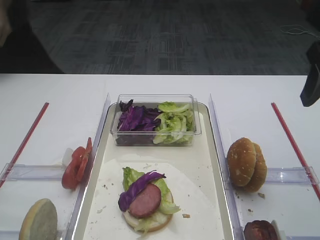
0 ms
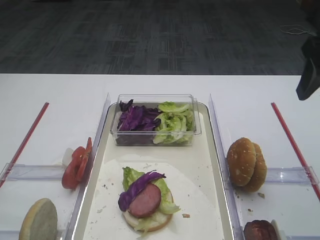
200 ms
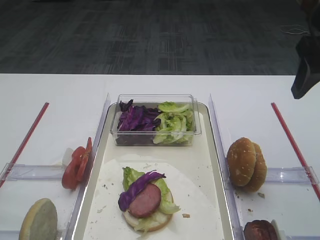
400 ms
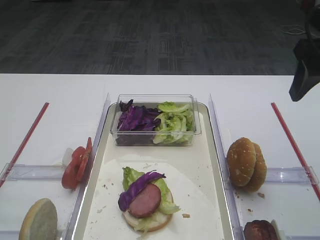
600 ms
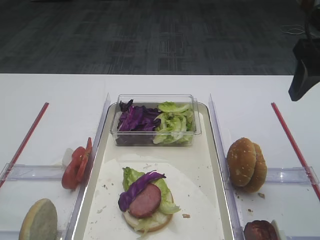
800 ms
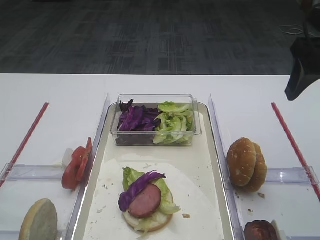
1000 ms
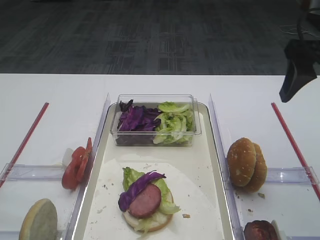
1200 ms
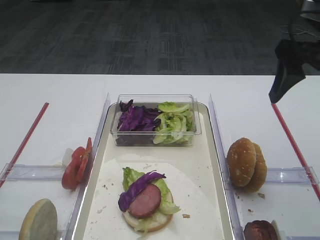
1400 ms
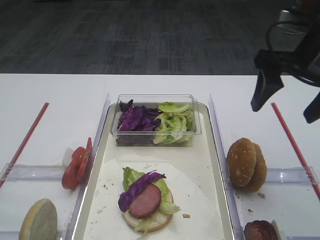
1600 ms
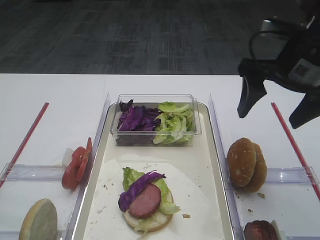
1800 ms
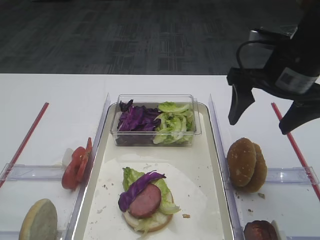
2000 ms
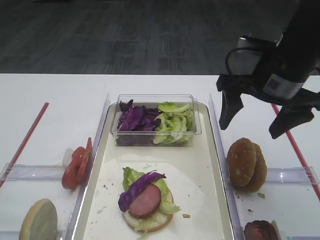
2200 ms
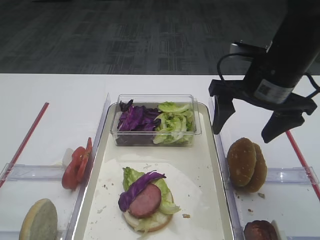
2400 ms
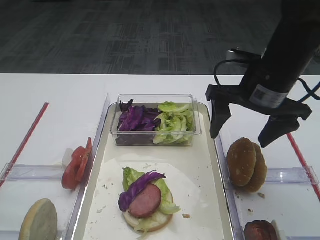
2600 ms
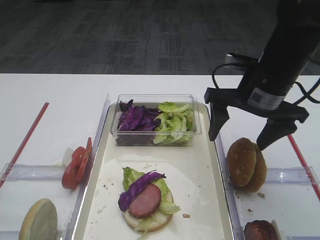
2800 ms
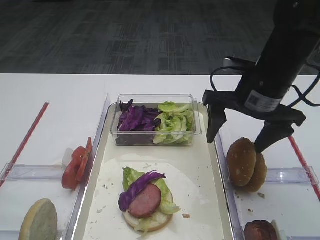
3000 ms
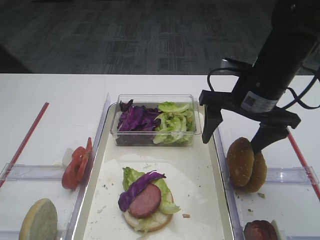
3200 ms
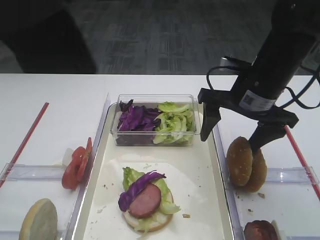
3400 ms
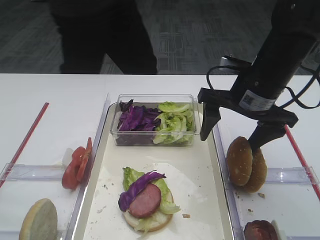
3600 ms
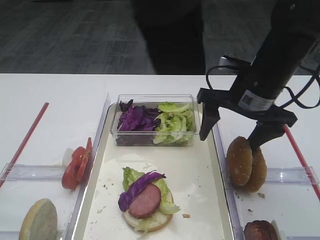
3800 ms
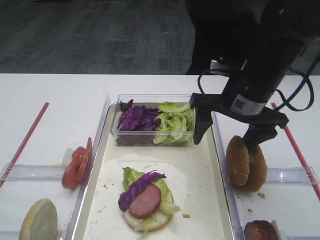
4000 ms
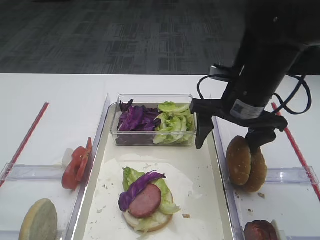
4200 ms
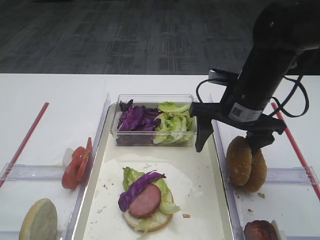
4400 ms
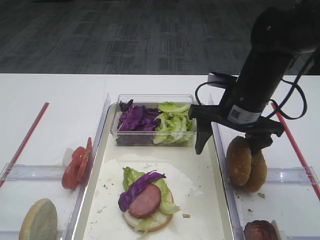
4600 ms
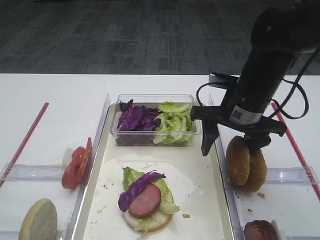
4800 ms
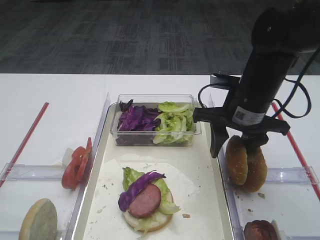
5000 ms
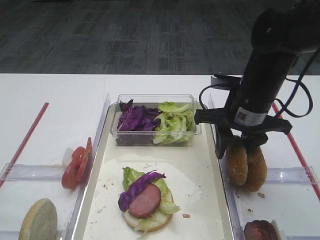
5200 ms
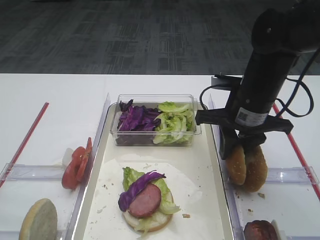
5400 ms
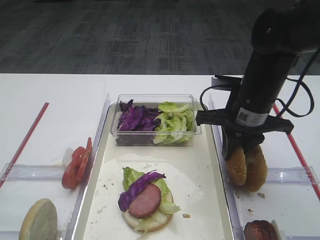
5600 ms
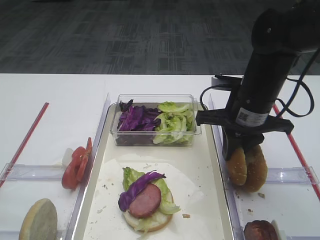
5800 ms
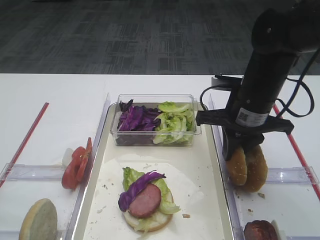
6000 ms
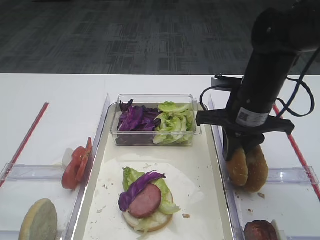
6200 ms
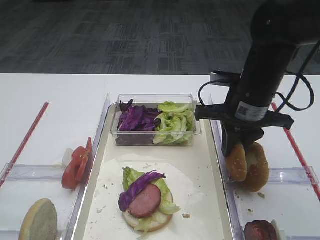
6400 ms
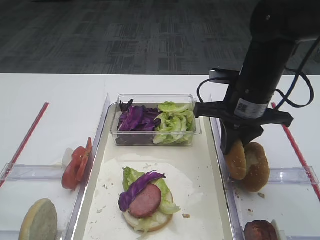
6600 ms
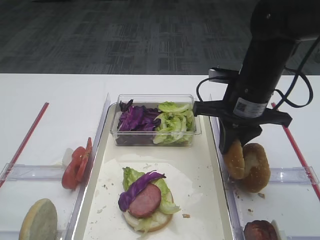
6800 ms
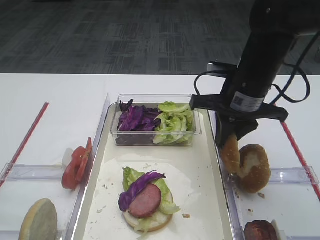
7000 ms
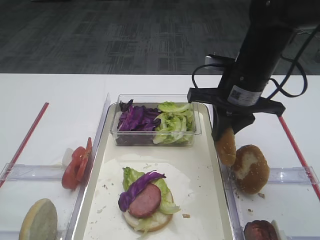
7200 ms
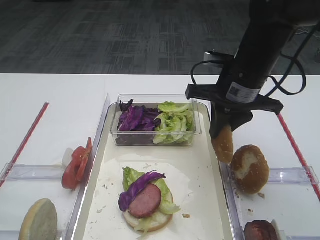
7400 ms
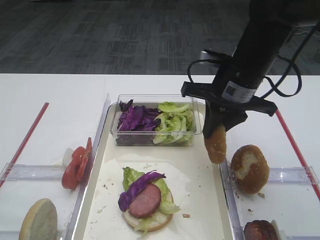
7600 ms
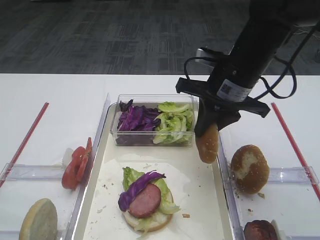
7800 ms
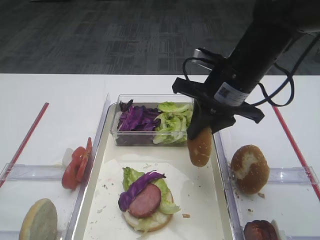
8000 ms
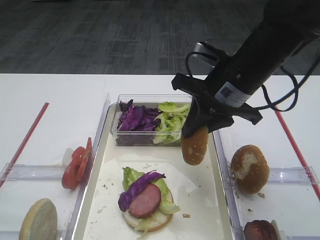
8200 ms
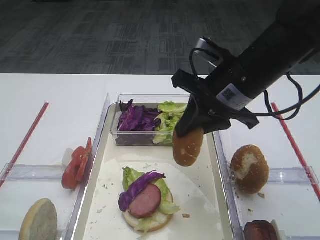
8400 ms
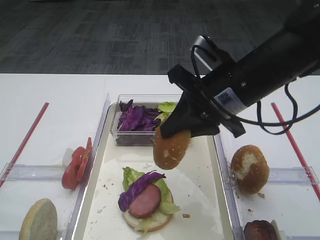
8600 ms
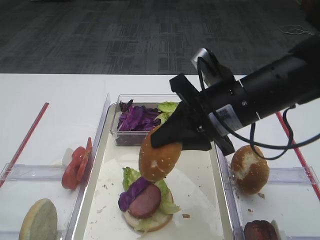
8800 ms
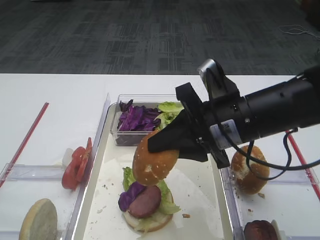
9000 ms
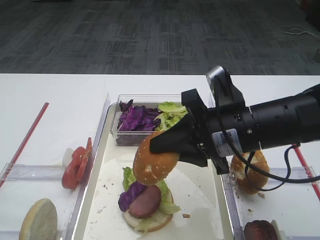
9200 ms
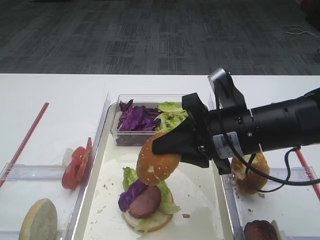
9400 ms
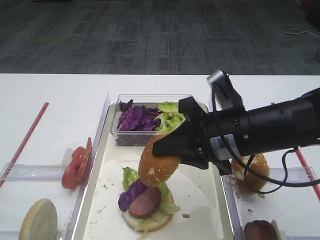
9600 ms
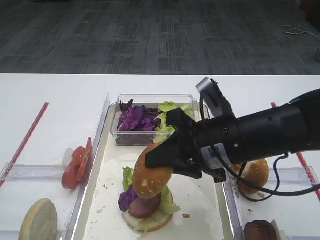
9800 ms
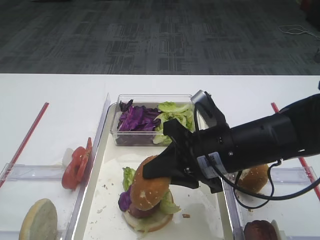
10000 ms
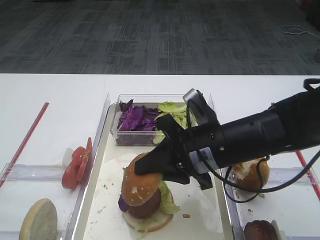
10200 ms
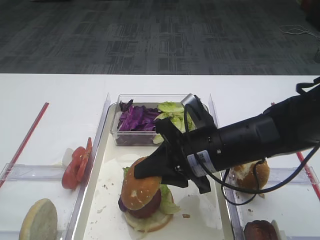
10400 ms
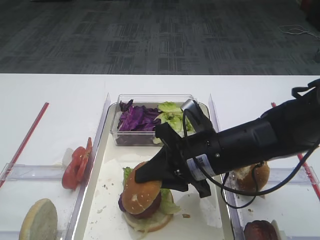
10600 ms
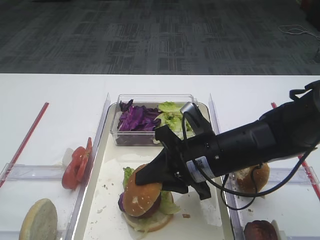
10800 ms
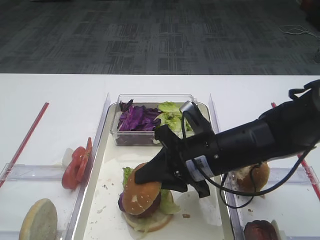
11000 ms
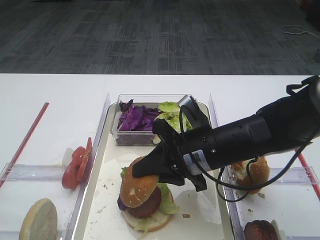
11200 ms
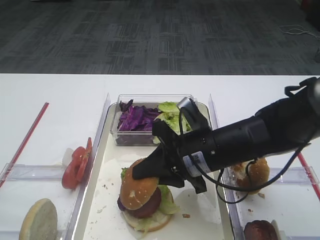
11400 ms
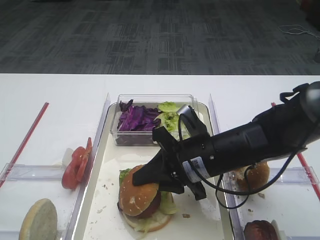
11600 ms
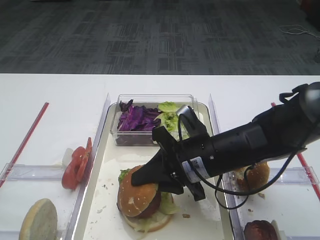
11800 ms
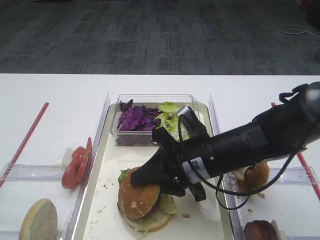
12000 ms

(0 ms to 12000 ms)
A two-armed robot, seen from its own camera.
Step, 0 ms - 5200 ms: Pick up the hamburger lid with the right gripper.
0 ms - 1600 ms: The right gripper changes place by roughly 5 cm.
1600 ms - 3000 ms: The right gripper moves downward and to the left, roughly 10 cm.
3000 ms - 4400 ms: The grippers move only a little.
4400 ms - 6000 ms: The right gripper closes.
6000 ms - 7600 ms: The grippers stay close to where they were, moving slightly.
7600 ms - 9000 ms: The right gripper is displaced backward by approximately 10 cm.
9000 ms - 10400 ms: The right gripper is displaced downward by some 5 cm.
10400 ms - 12000 ms: The grippers move only a little.

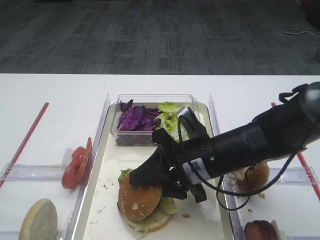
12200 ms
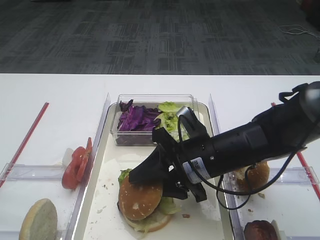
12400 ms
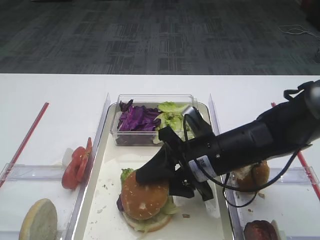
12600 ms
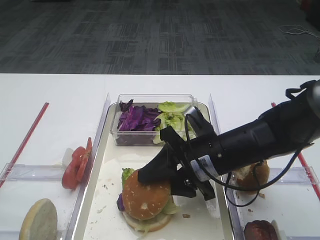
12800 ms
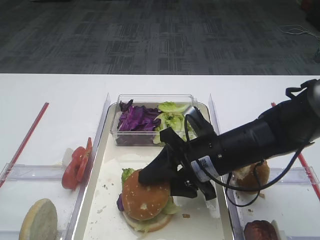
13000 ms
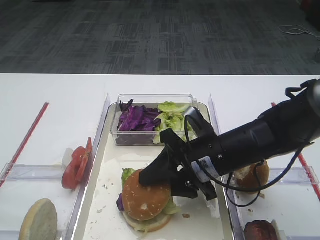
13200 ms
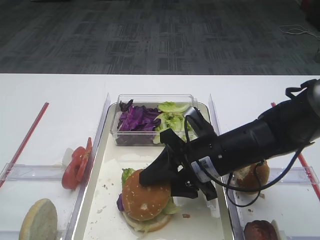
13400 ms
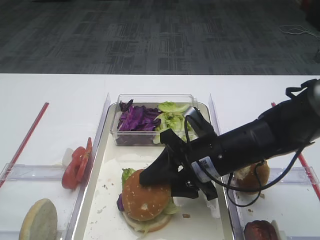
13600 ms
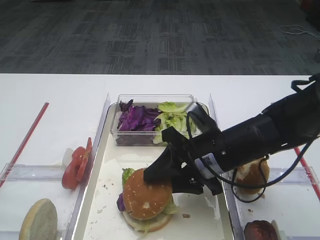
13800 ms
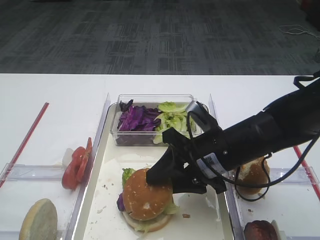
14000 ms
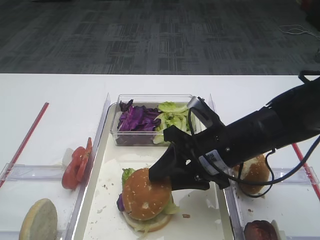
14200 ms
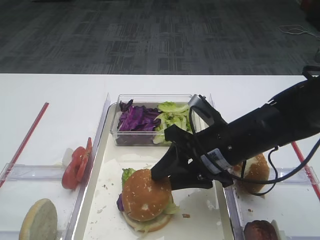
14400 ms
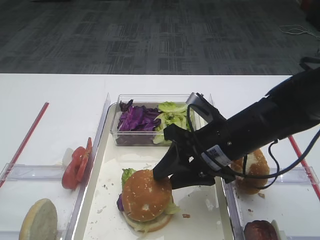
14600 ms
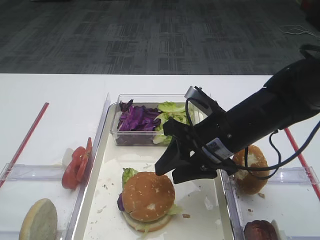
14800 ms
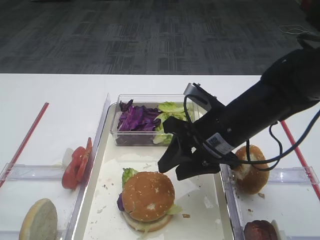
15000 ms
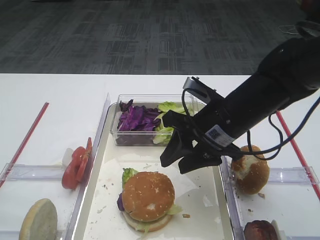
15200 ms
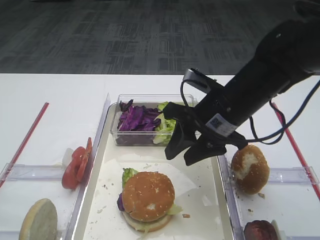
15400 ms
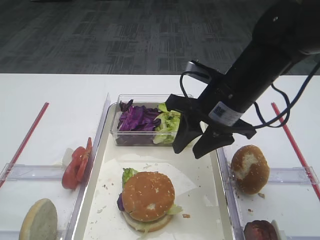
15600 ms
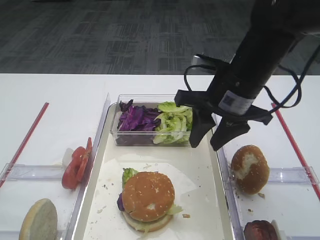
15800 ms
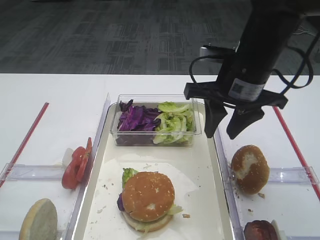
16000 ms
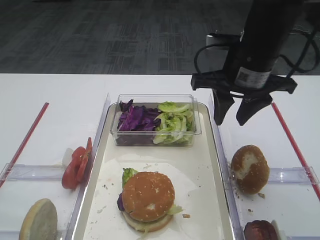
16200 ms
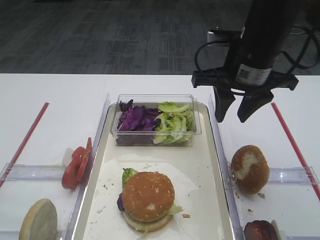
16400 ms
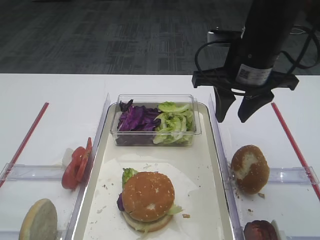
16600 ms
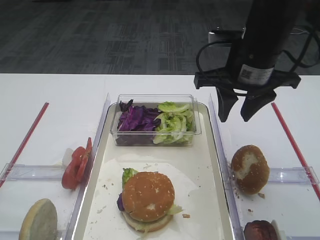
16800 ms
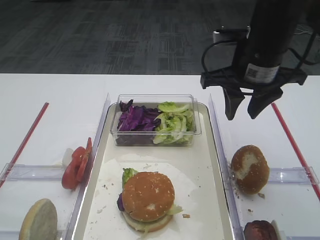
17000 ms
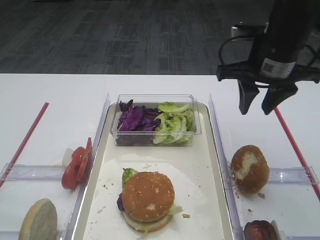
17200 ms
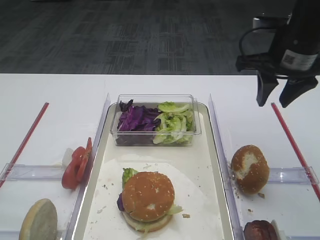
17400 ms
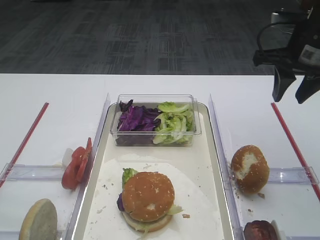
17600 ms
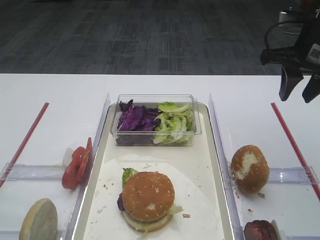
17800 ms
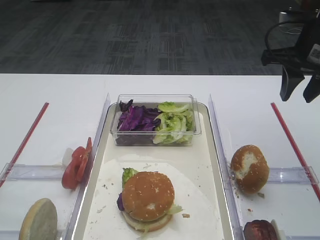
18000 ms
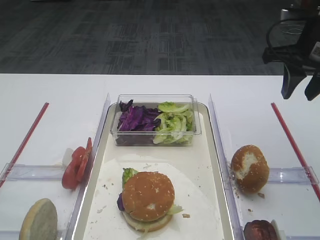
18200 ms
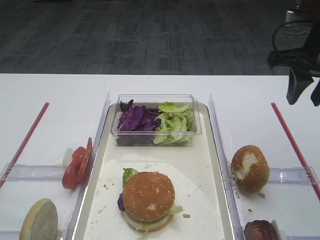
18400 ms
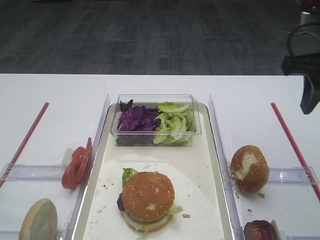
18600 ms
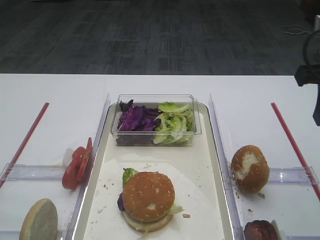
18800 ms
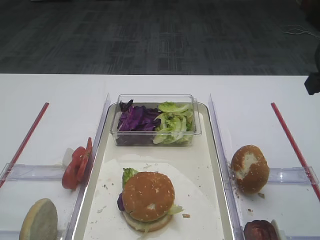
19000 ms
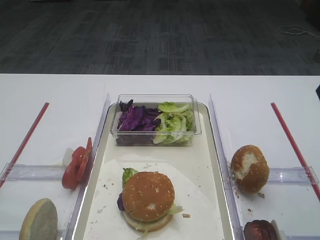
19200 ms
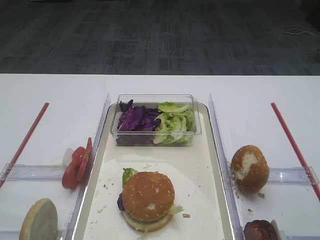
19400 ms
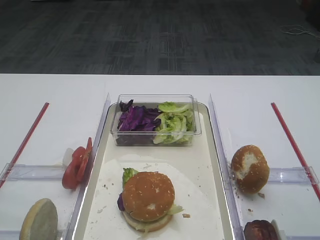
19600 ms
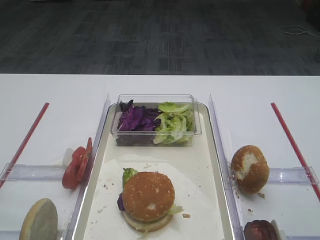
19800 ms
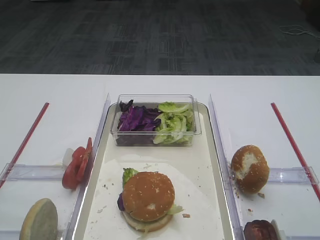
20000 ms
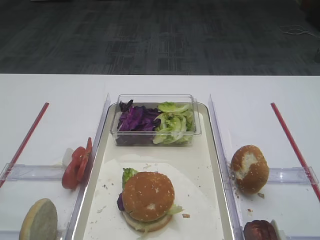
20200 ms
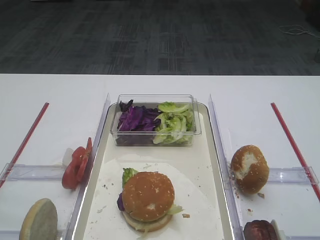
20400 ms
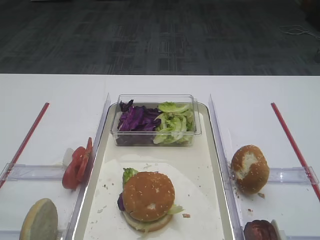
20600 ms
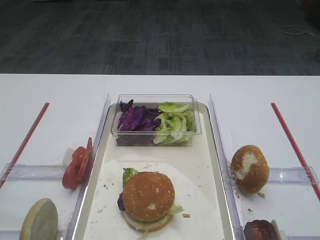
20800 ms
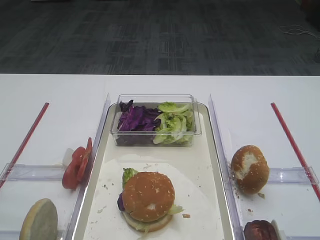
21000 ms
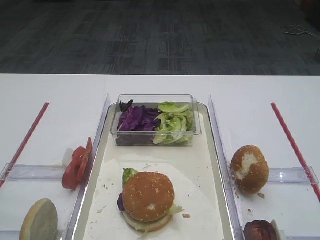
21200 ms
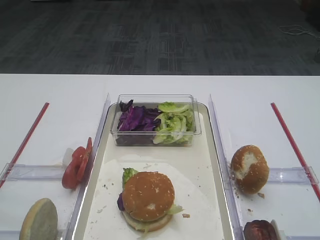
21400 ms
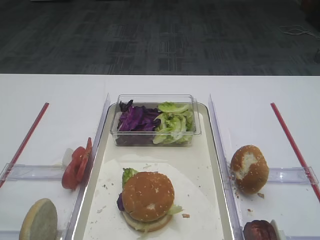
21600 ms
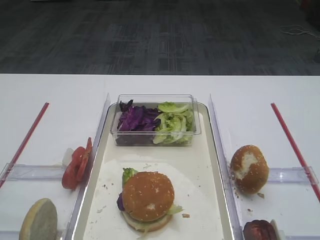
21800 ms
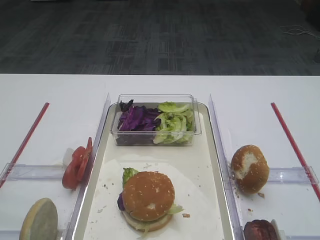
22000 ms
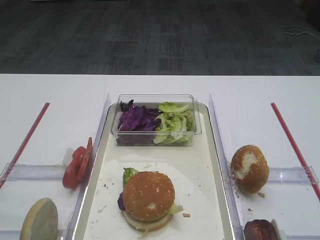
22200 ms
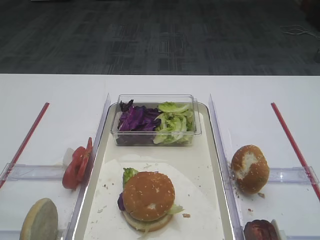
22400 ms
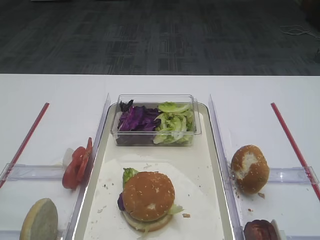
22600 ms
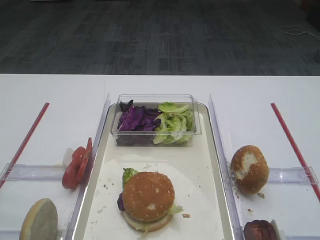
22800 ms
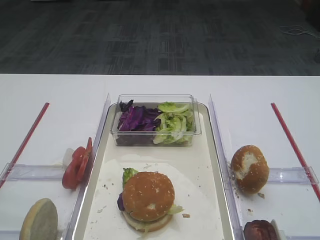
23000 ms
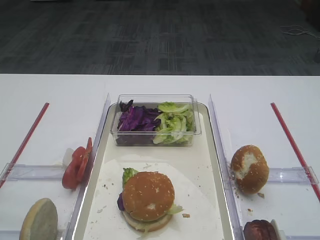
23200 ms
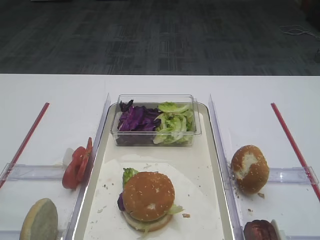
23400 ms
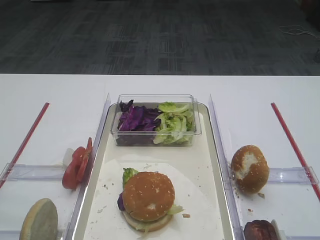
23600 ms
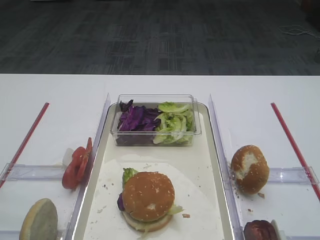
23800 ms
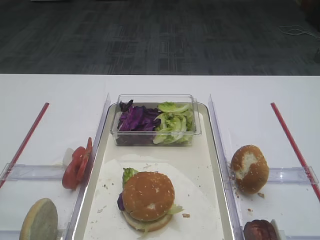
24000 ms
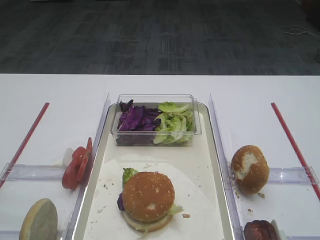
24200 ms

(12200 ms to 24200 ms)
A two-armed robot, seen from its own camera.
Step, 12200 ms - 15400 ms: Place the hamburger lid on the purple cabbage with the right gripper.
12200 ms - 13800 ms: There are only small adjustments of the grippers.
13800 ms - 15200 ms: The right gripper moves roughly 5 cm.
15200 ms - 16600 ms: The right gripper heads upward, covering approximately 10 cm.
16600 ms - 18200 ms: The right gripper goes about 10 cm to the right.
18200 ms - 19800 ms: The right gripper travels backward by some 20 cm.
22600 ms - 24200 ms: Neither gripper changes place.
